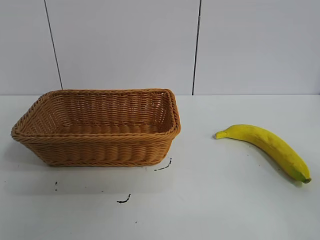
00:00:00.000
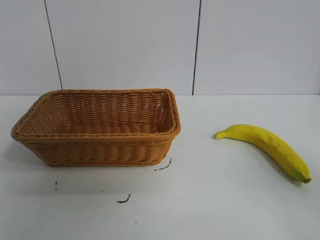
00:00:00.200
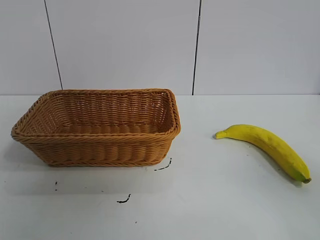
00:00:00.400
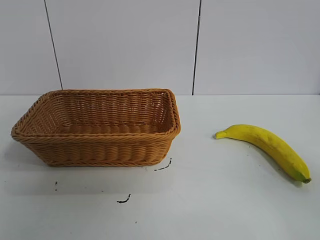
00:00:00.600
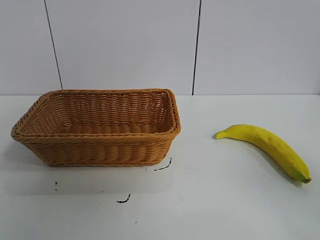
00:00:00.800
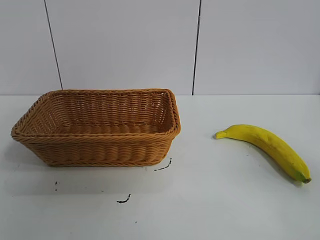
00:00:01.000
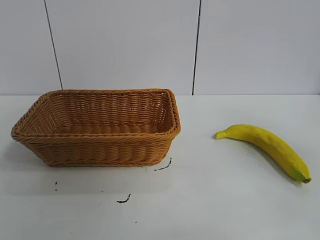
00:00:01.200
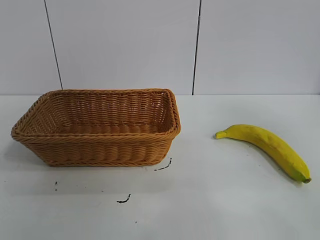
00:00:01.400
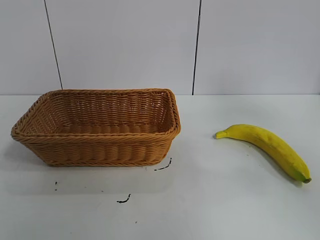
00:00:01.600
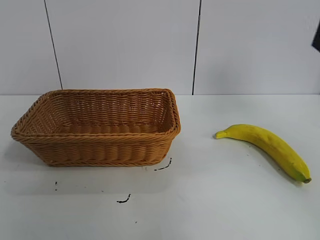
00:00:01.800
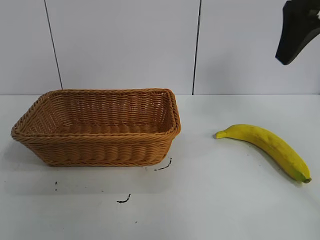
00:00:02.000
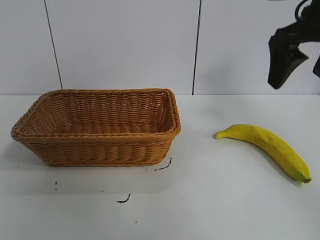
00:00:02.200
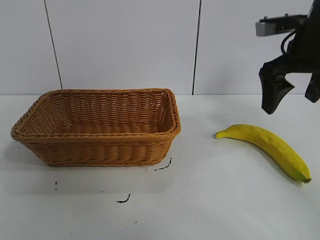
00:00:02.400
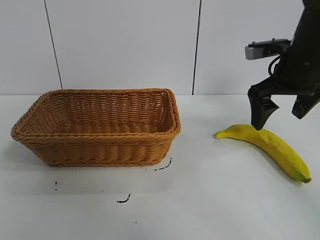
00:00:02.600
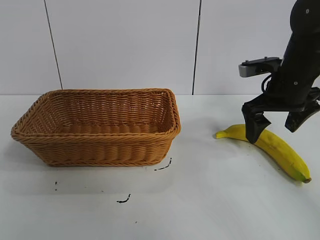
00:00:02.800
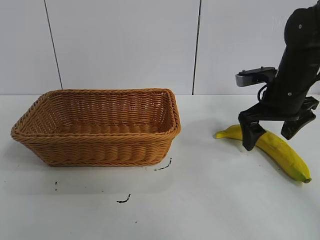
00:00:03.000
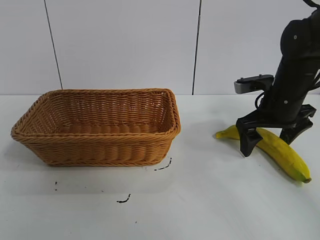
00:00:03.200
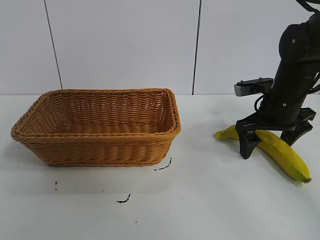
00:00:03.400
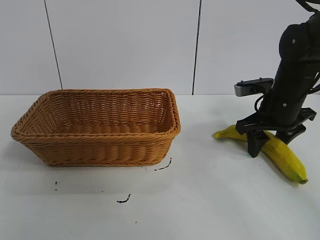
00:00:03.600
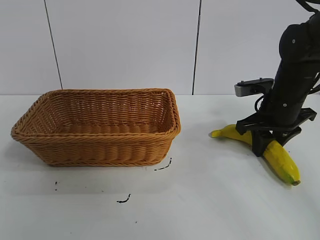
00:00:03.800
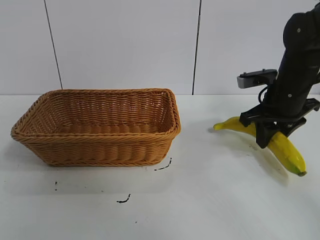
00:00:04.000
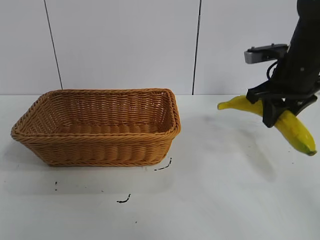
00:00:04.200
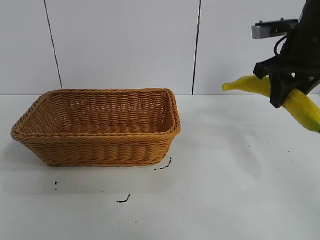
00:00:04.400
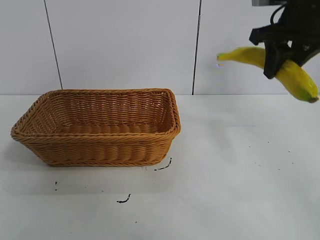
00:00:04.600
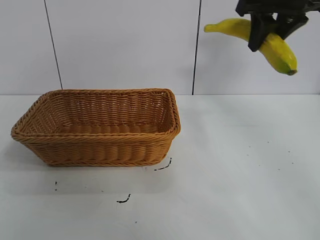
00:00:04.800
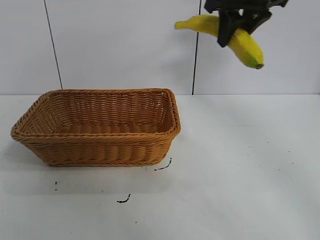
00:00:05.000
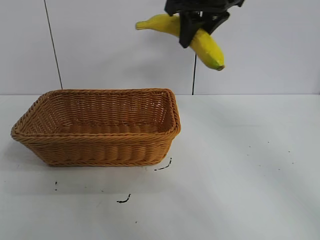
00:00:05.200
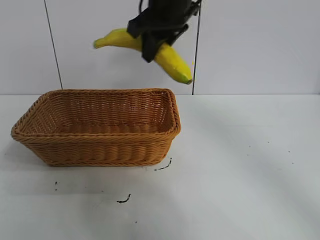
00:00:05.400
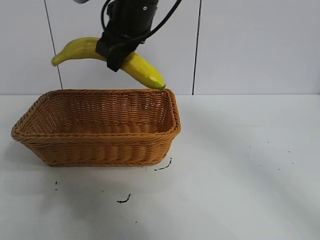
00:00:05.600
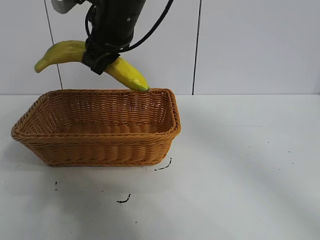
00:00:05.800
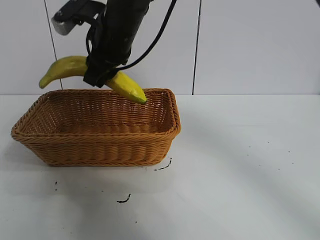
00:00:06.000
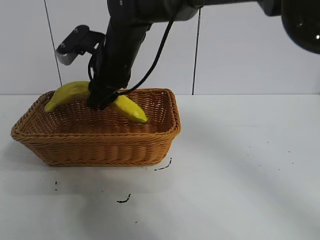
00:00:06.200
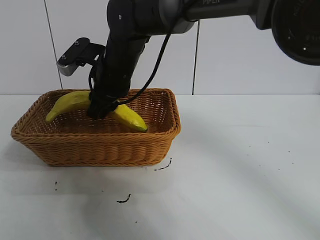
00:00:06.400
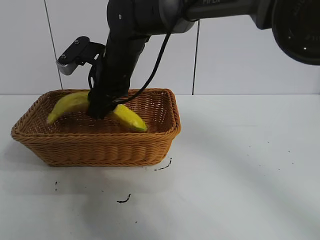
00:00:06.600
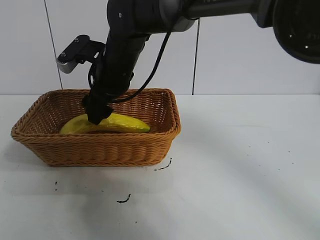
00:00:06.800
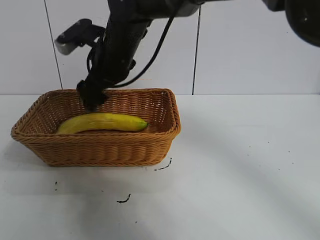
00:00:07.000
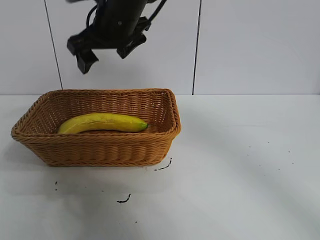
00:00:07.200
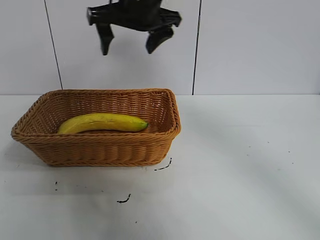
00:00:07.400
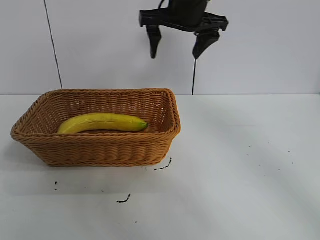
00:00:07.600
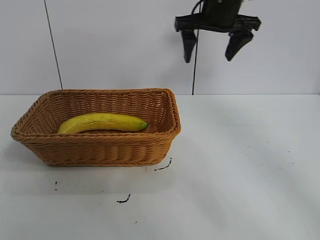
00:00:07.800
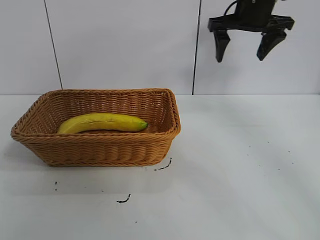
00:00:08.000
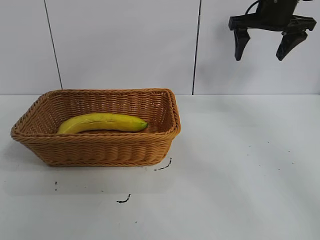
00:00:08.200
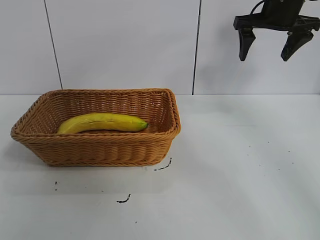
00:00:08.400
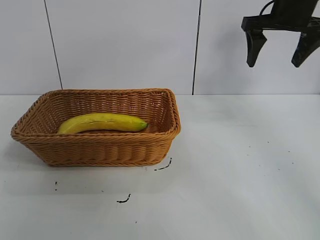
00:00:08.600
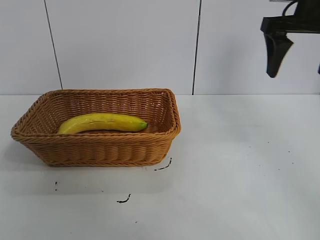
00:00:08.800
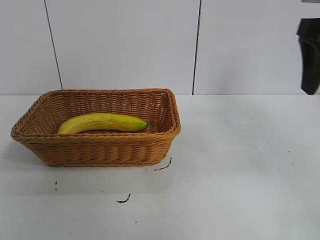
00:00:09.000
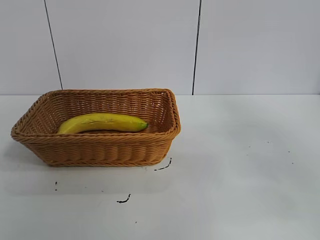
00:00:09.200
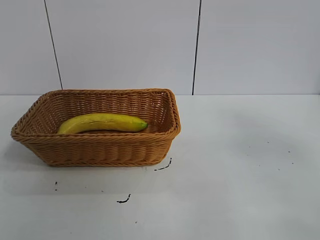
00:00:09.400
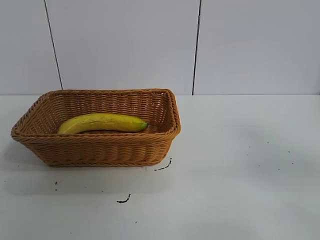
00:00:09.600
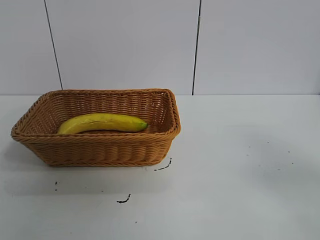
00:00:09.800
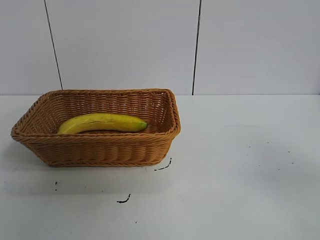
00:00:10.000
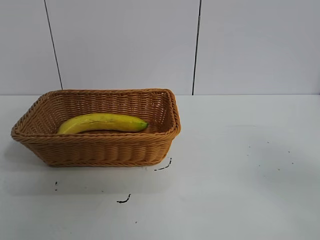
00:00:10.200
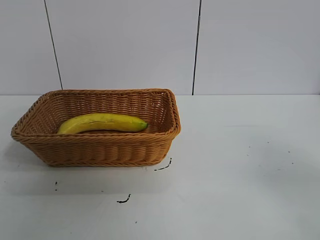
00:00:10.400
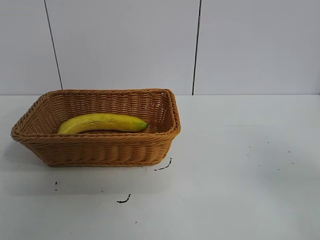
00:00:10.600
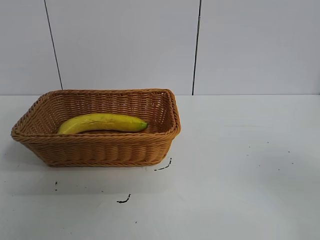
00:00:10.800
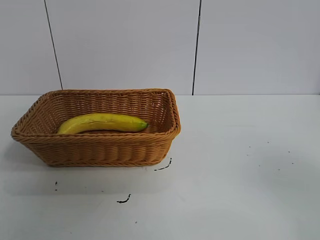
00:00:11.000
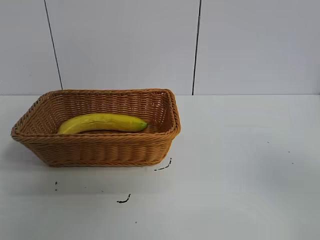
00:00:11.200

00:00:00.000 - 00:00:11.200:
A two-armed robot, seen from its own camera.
Task of the whole recording: pick up the banana and put it into the basket.
Step, 00:00:00.000 - 00:00:03.800: Grasp the banana with right gripper.
Step, 00:00:04.000 - 00:00:06.800: Place the banana in the basket with right gripper.
